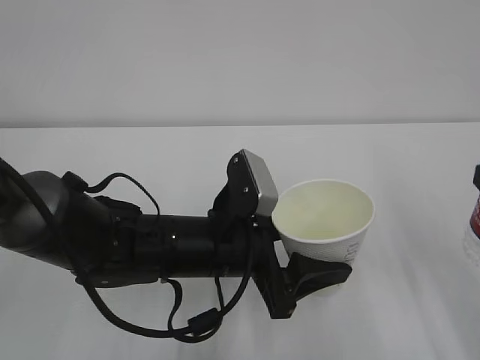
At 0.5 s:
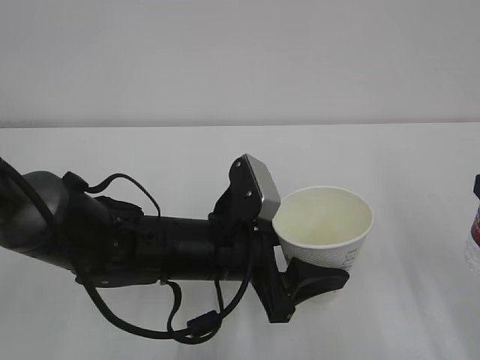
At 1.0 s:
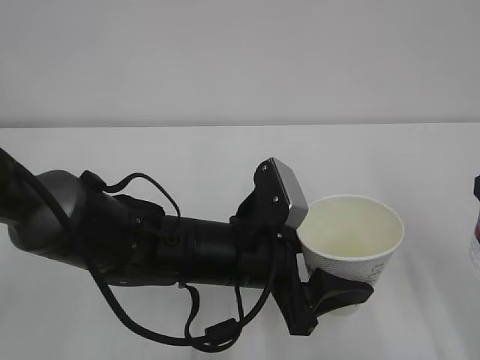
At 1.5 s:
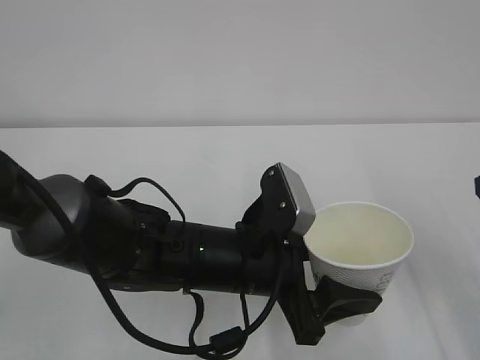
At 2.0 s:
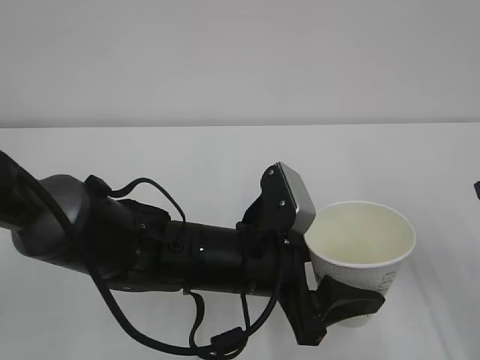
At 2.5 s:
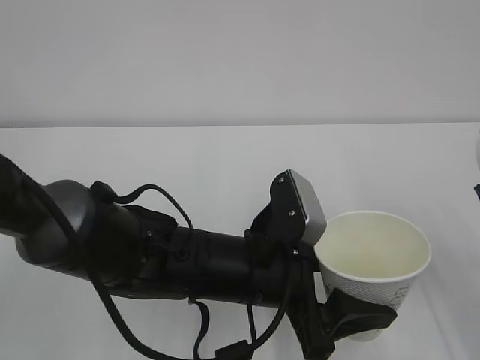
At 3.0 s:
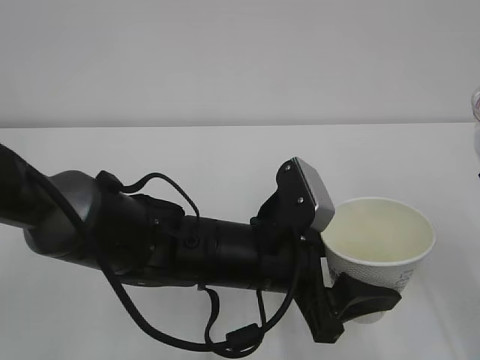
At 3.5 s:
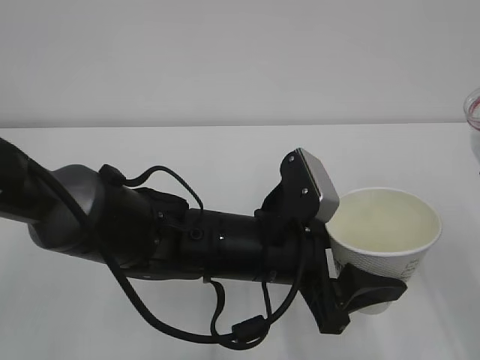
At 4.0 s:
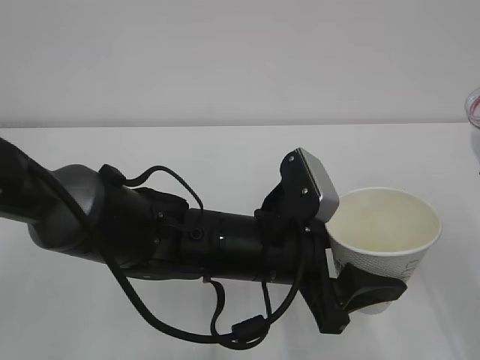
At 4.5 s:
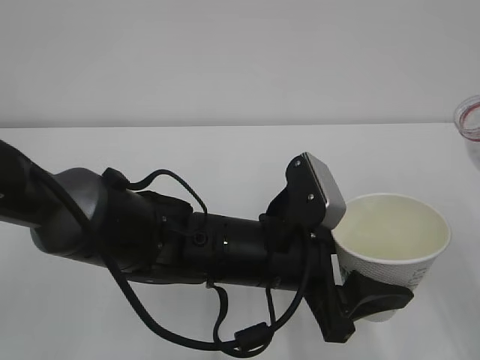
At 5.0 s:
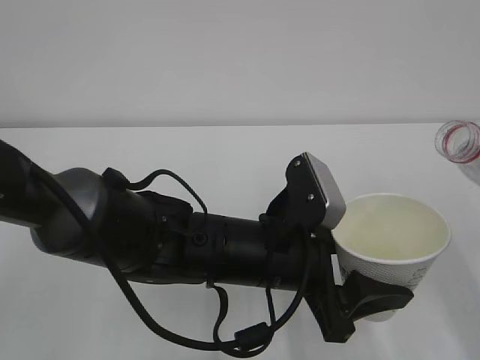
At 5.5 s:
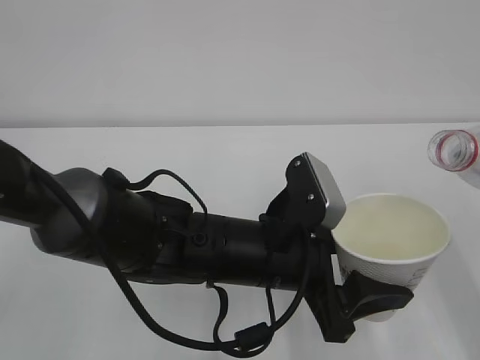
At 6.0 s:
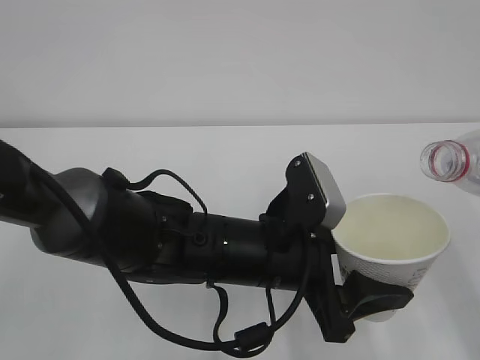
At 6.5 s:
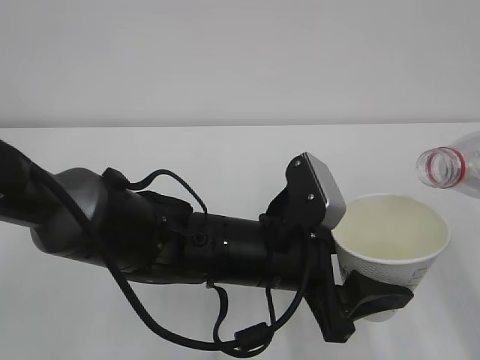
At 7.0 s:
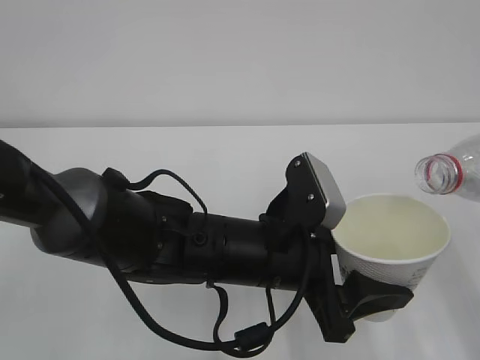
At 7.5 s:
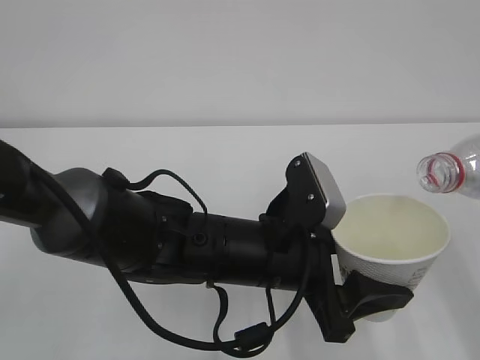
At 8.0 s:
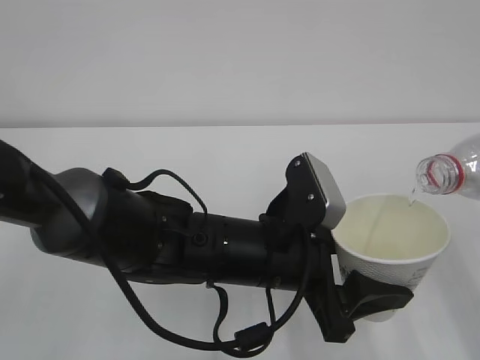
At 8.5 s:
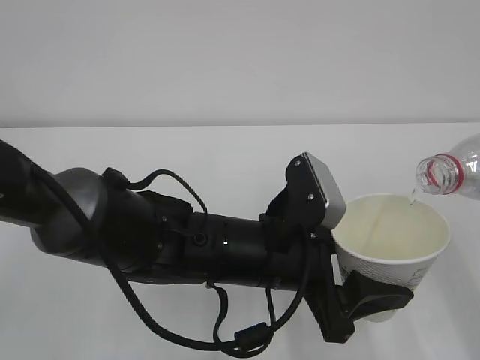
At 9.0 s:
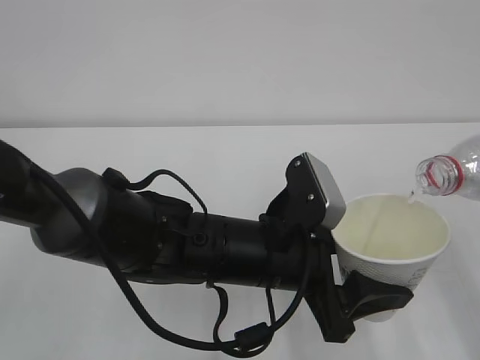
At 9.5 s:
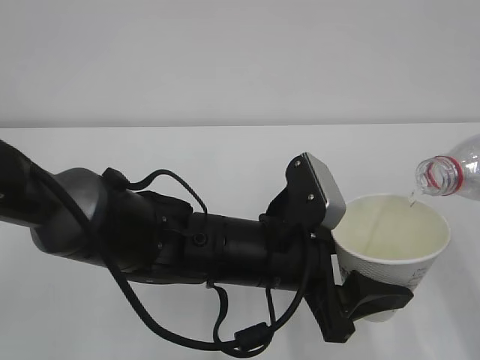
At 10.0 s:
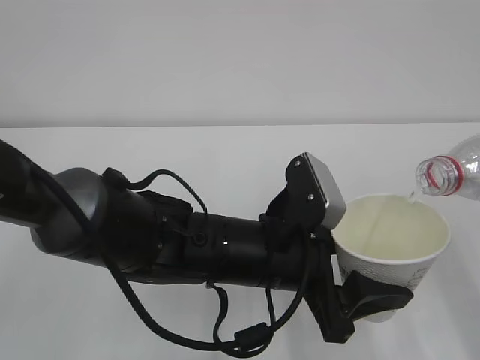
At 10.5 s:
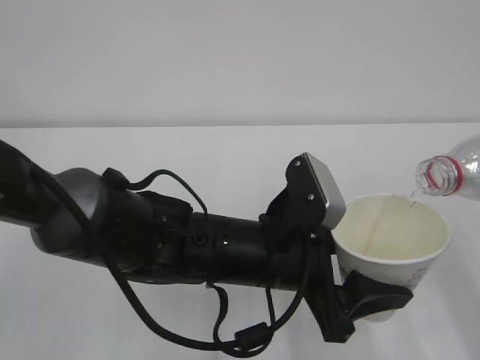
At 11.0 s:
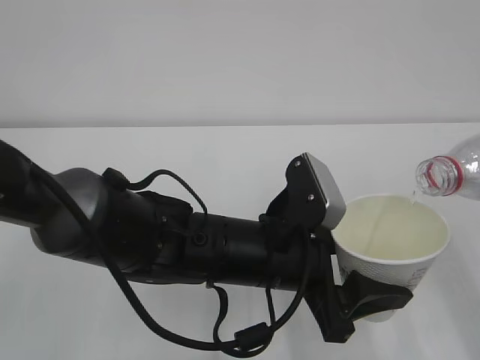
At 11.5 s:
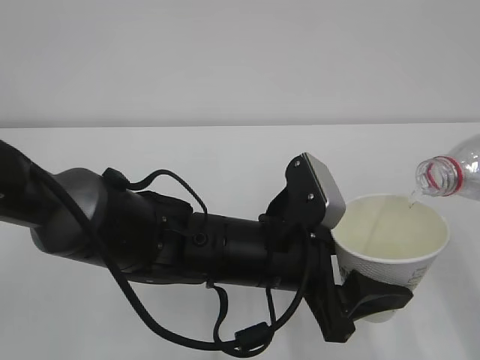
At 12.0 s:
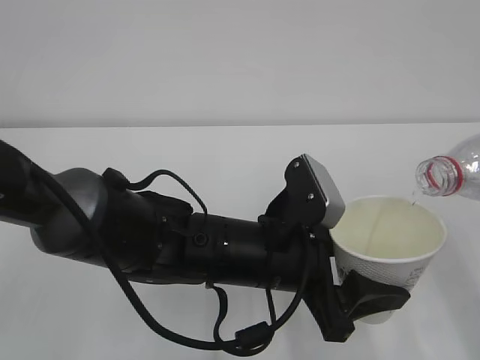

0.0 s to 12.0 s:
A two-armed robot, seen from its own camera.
6.0 to 8.0 s: The grippers make only small movements.
8.0 to 12.0 s: Neither gripper changes place.

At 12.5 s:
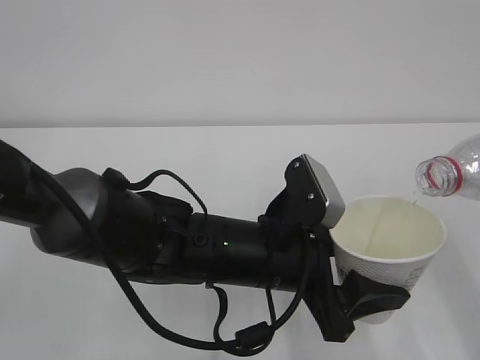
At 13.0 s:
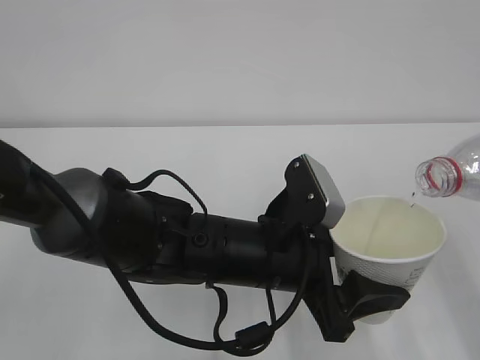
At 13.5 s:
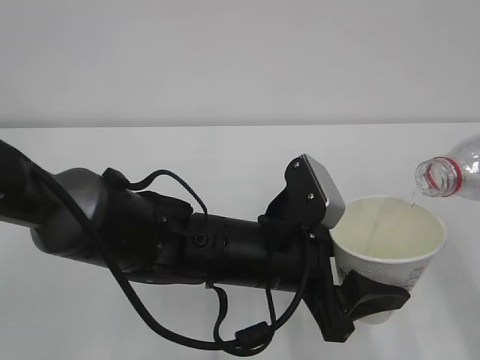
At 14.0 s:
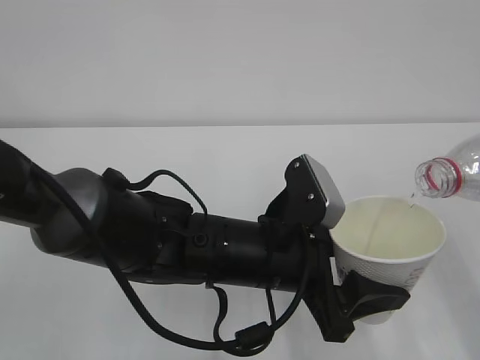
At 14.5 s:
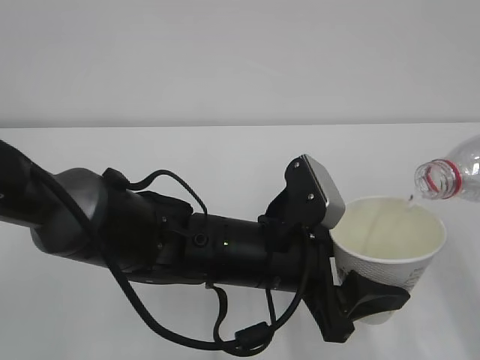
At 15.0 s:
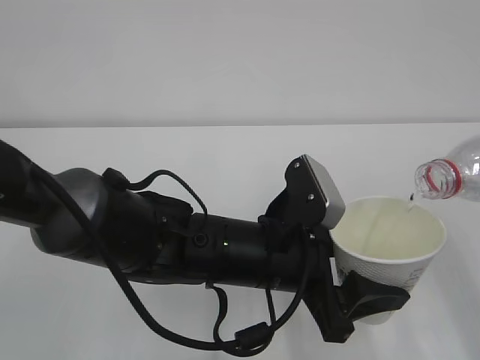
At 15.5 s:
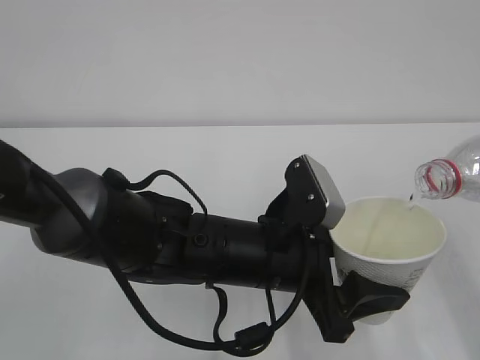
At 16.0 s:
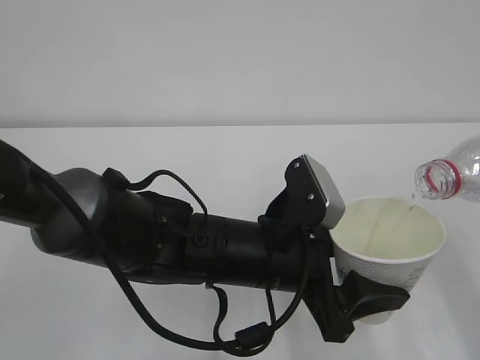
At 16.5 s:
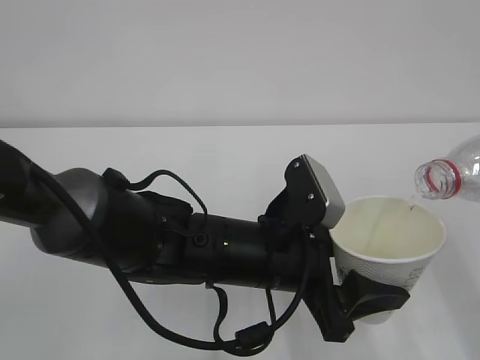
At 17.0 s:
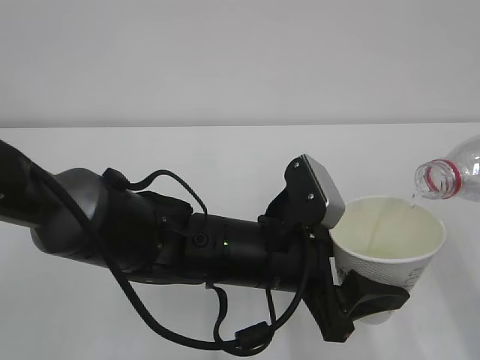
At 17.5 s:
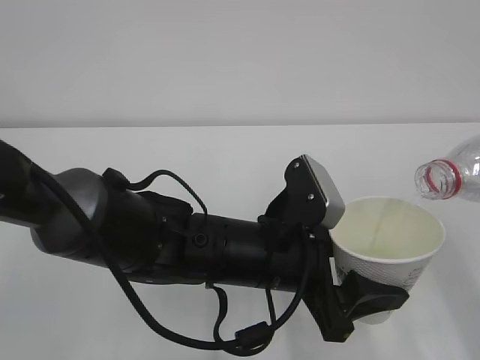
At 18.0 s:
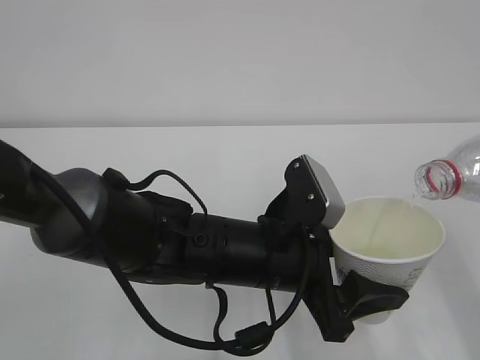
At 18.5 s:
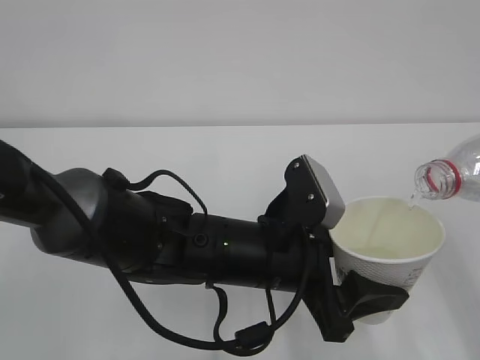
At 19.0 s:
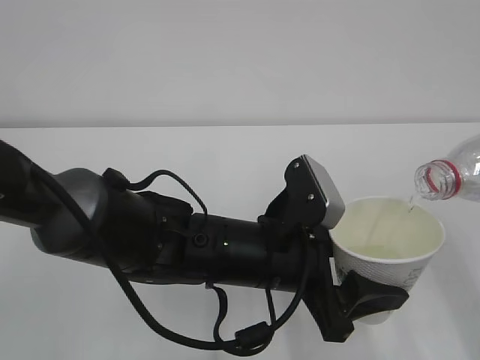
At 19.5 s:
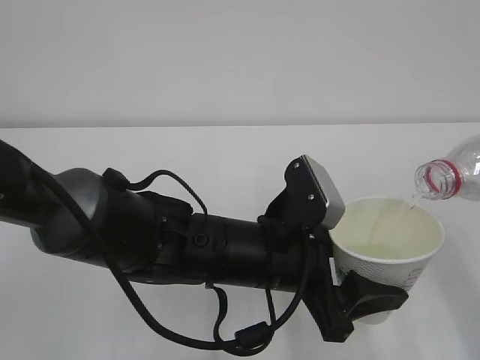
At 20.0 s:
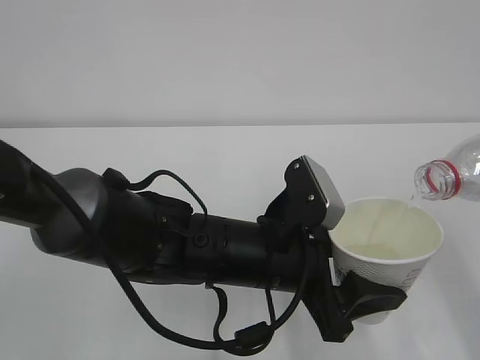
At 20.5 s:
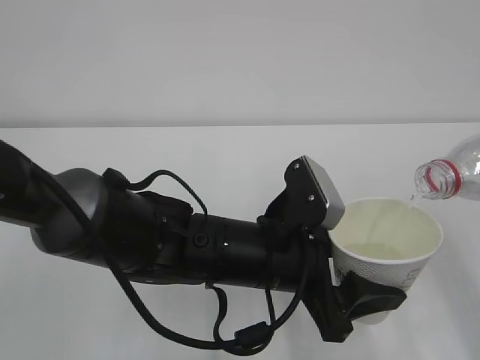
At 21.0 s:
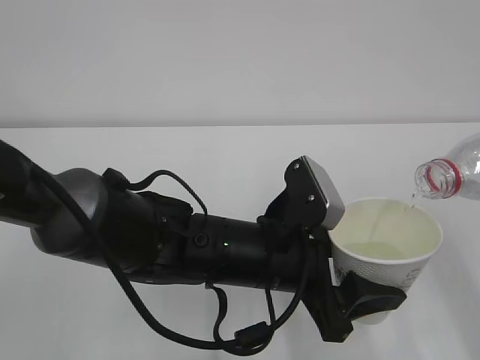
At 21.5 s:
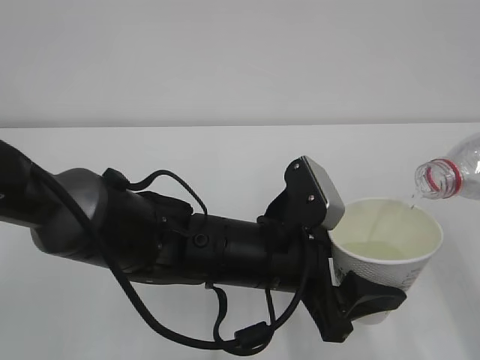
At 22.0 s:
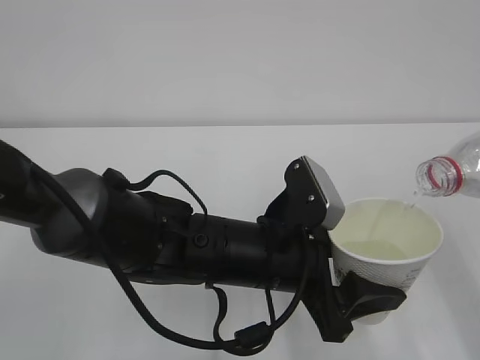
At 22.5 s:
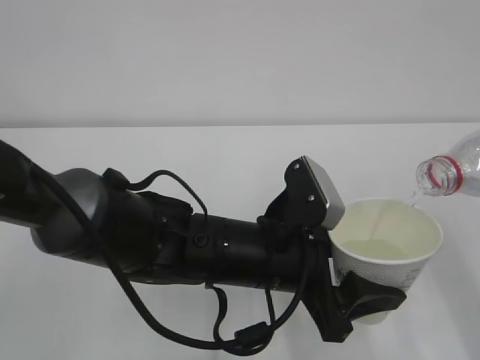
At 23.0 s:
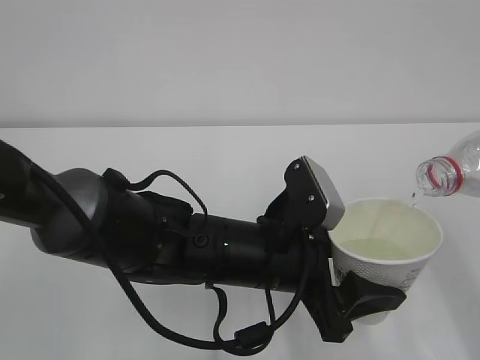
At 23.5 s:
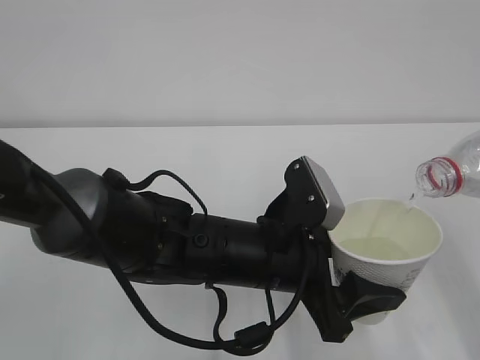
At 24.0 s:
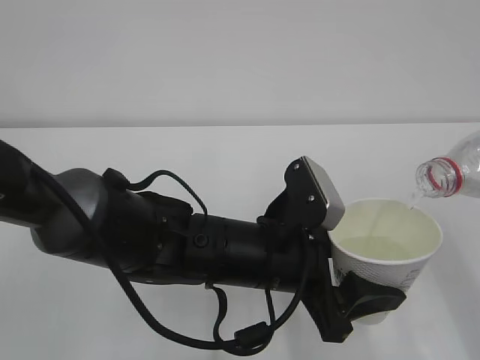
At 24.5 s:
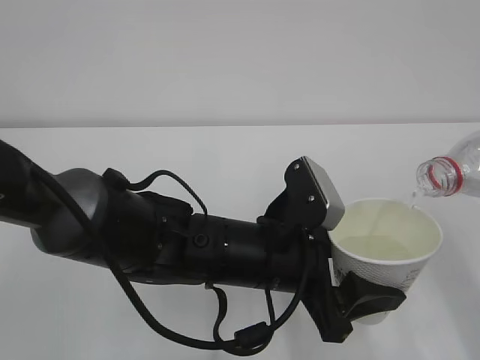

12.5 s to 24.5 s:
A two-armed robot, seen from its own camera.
12.5 to 22.5 s: Both grippers stay put.
22.5 to 24.5 s: Both grippers stay put.

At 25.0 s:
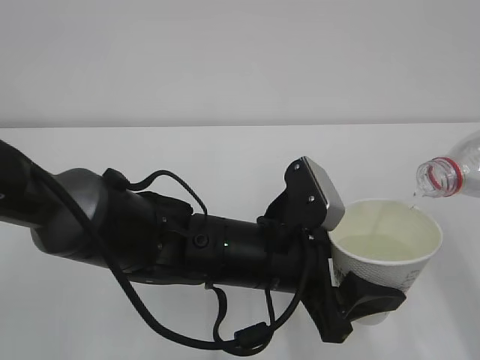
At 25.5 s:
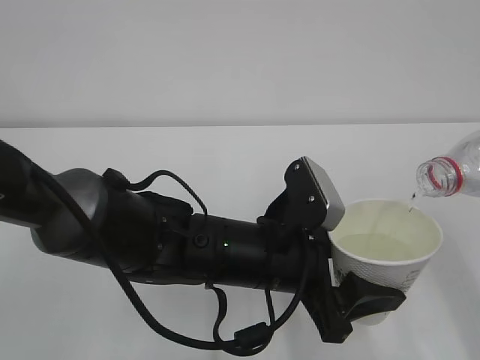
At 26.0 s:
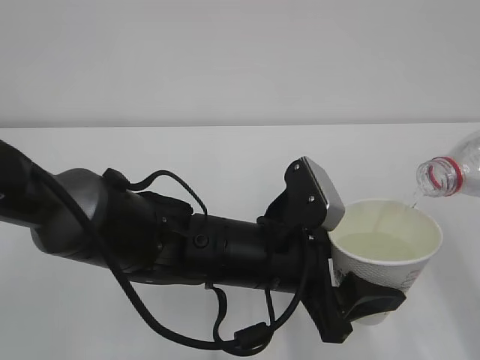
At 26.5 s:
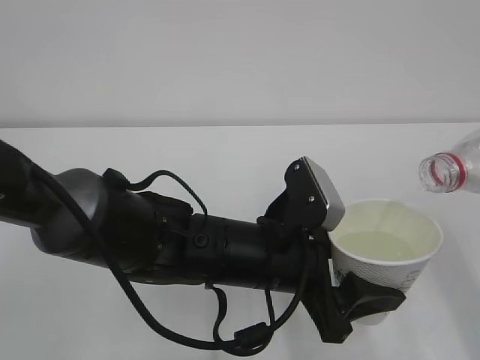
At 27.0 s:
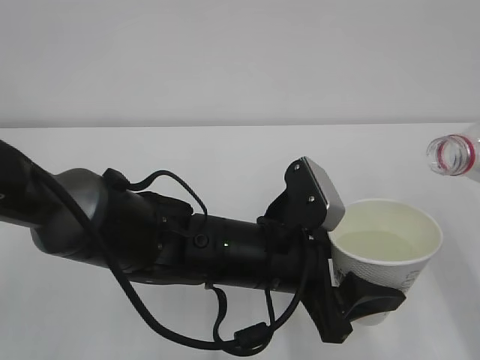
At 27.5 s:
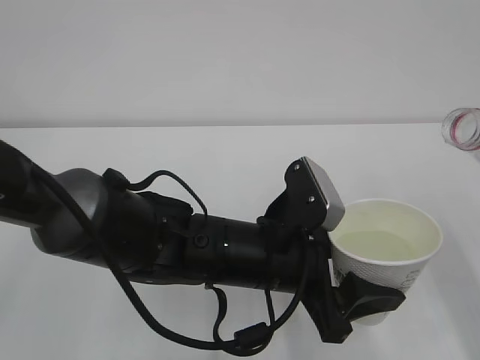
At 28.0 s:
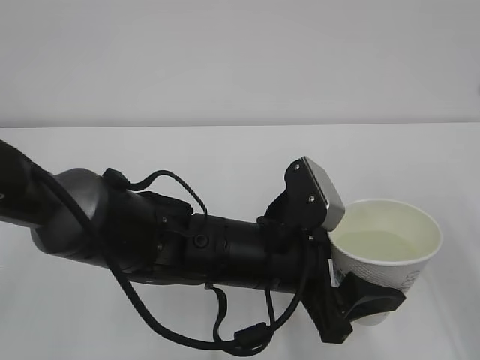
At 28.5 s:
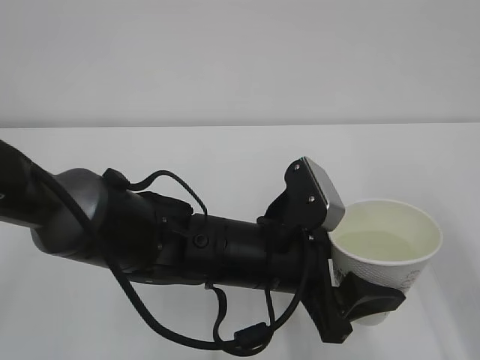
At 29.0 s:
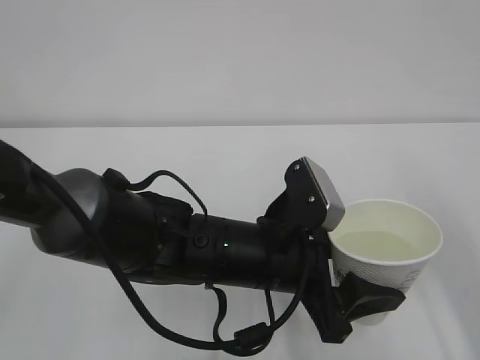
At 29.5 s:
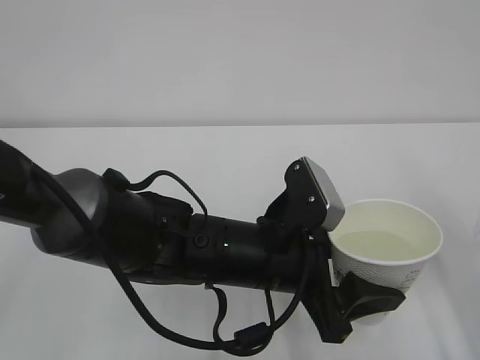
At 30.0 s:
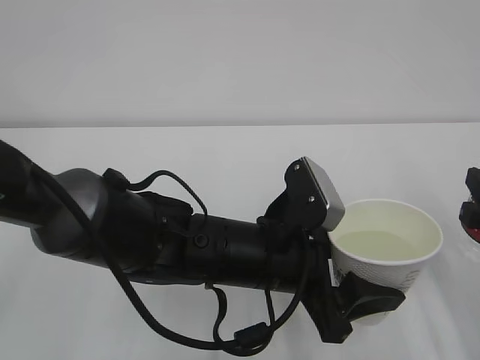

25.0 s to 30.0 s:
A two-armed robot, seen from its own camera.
27.5 to 30.0 s: The right gripper shifts some 5 cm downward.
